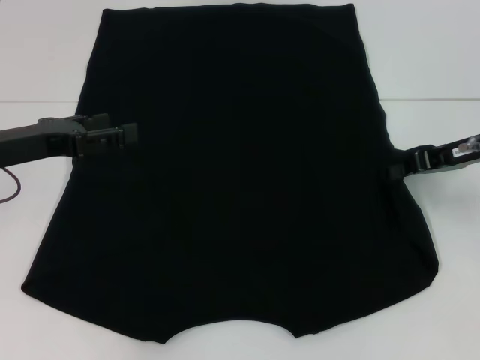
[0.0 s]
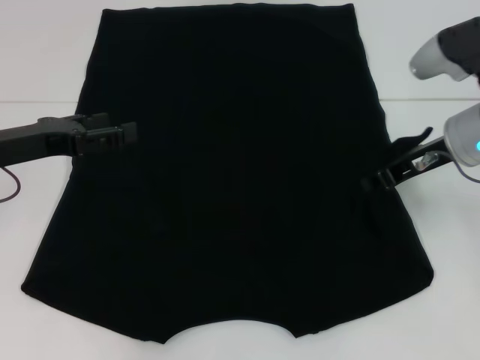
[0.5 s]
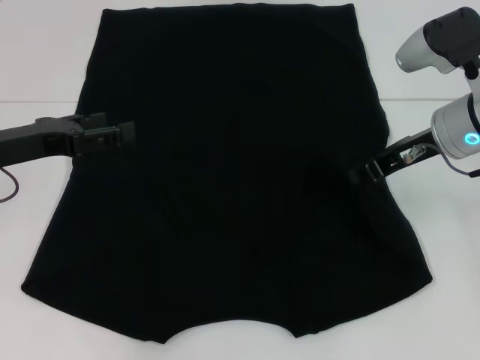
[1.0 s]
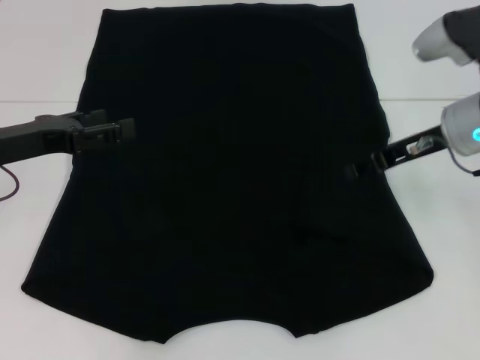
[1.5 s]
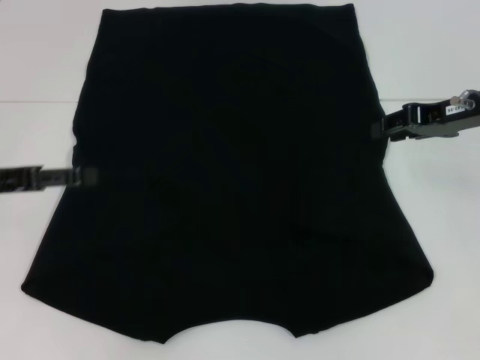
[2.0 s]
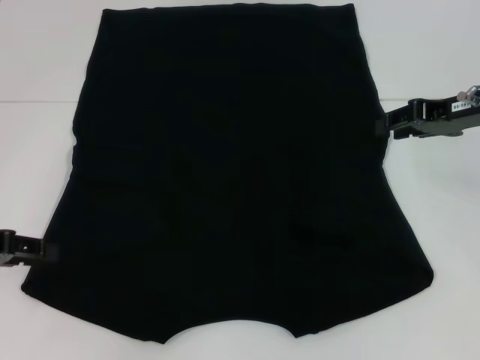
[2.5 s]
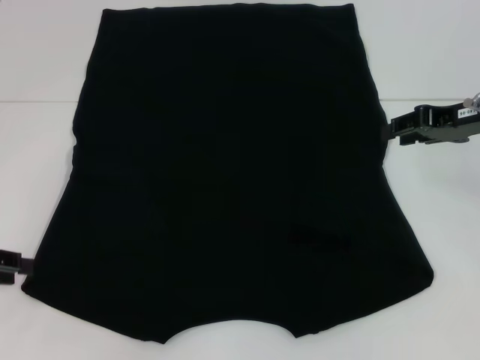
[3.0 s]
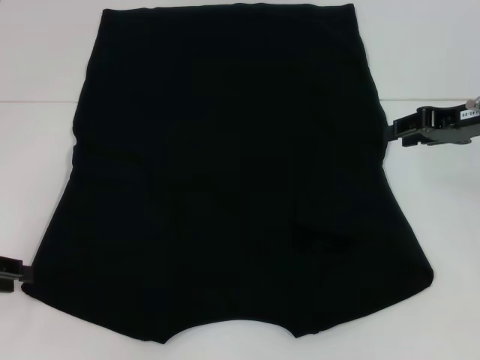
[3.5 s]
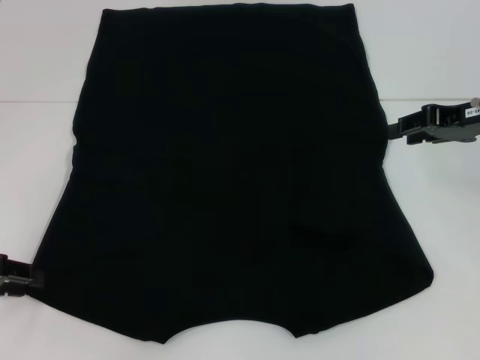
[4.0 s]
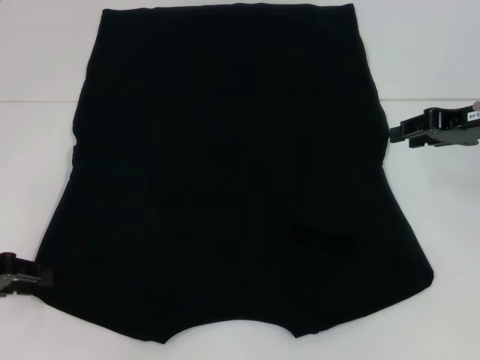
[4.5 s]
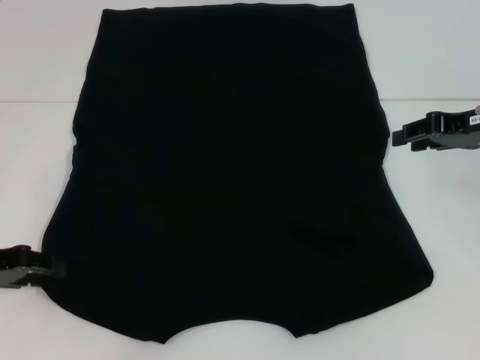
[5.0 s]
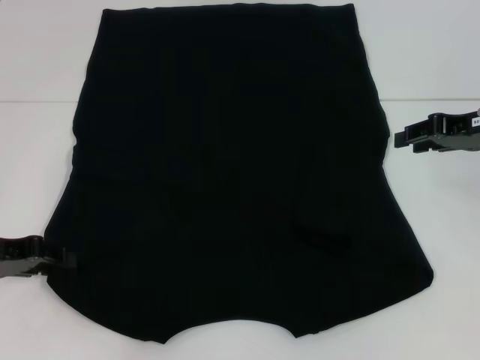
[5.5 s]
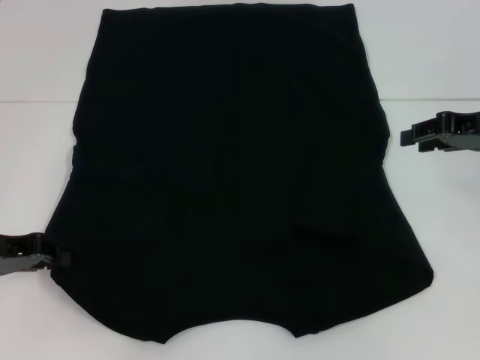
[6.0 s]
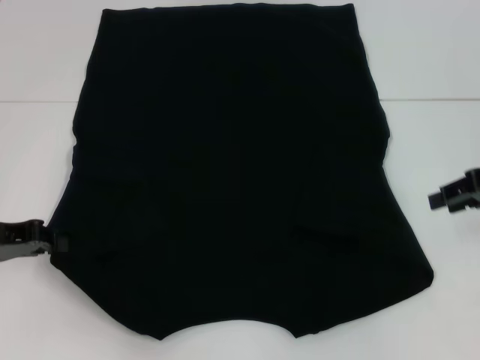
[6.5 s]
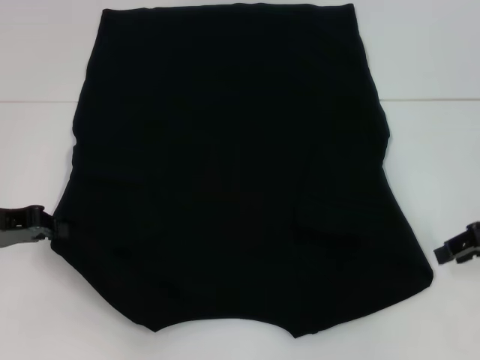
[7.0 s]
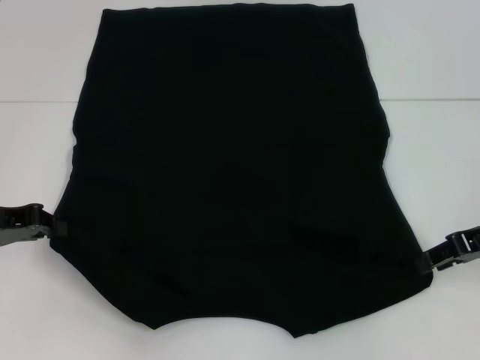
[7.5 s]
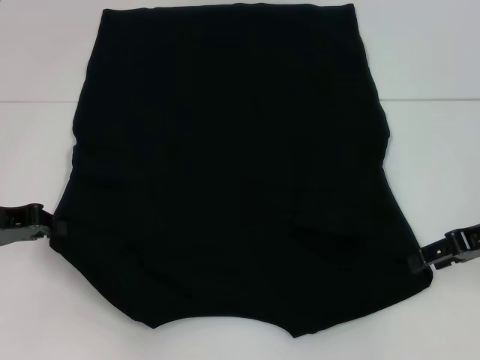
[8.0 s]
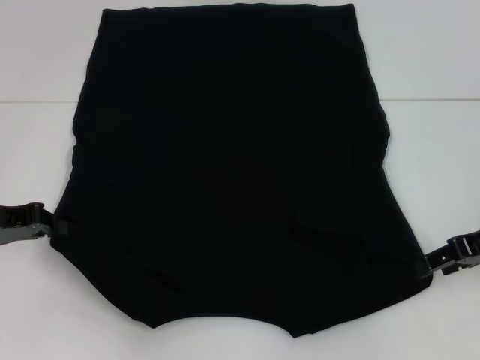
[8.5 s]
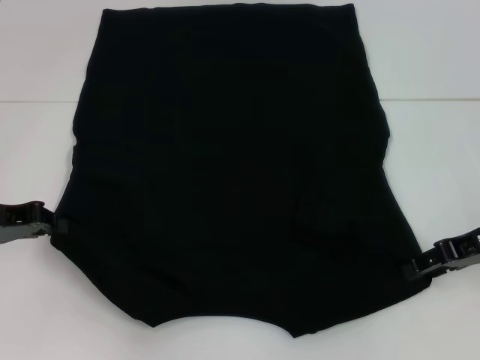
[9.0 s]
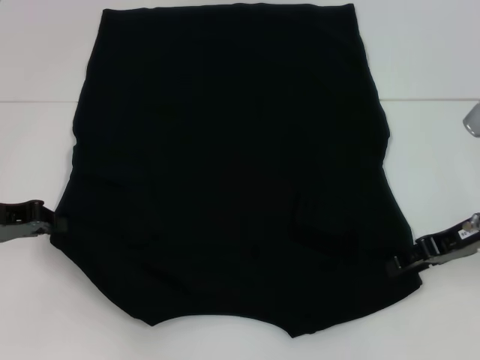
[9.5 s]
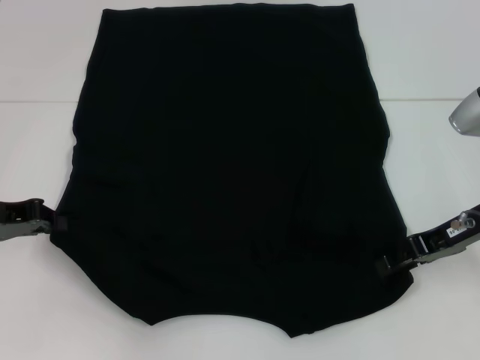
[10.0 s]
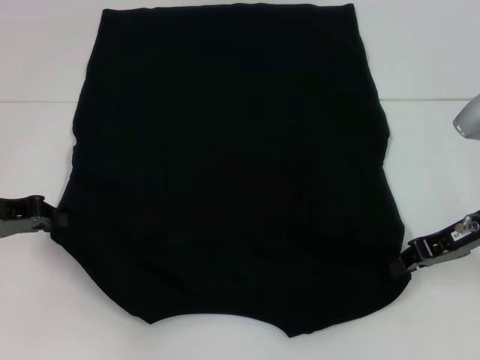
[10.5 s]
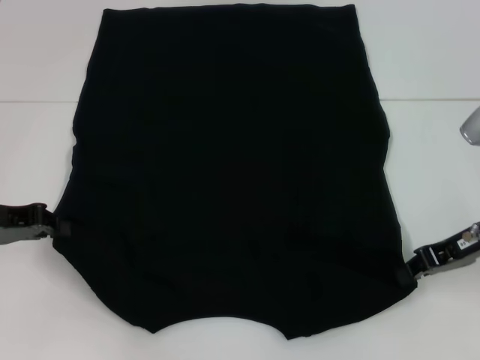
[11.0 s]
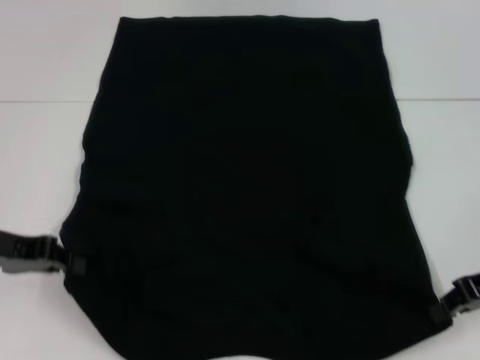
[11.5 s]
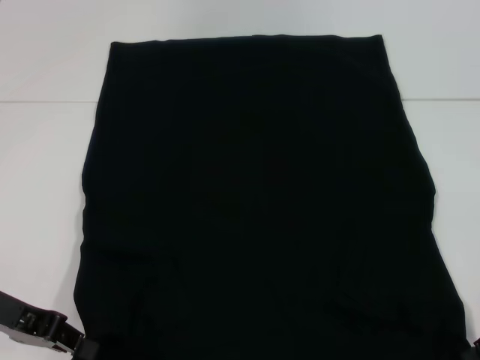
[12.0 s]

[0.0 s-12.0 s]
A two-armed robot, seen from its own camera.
Step, 1.5 to 6.5 s: Grab the bottom left corner with your left hand.
Step, 7.0 to 11.0 s: Grab the bottom right corner with your right hand.
0.0 to 2.0 s: The right gripper opens.
2.0 to 4.0 s: The left gripper moves some 5 cm.
4.0 to 6.0 s: The grippers stay close to where they were, moving slightly.
6.0 to 8.0 s: The left gripper closes; the right gripper heads backward, covering approximately 5 cm.
8.0 to 10.0 s: The grippers make only small movements.
10.0 to 12.0 s: The left gripper moves some 5 cm; the right gripper goes some 10 cm backward and to the right, and closes.

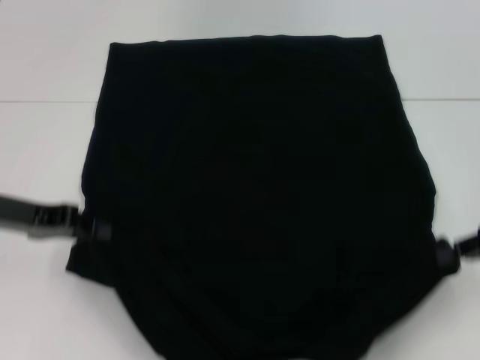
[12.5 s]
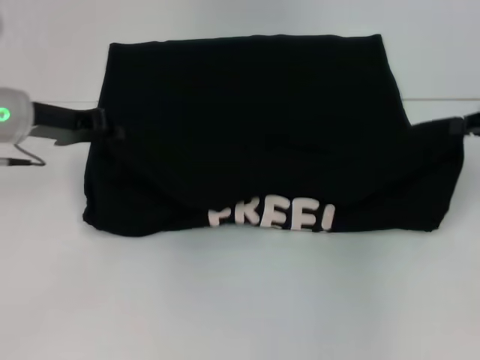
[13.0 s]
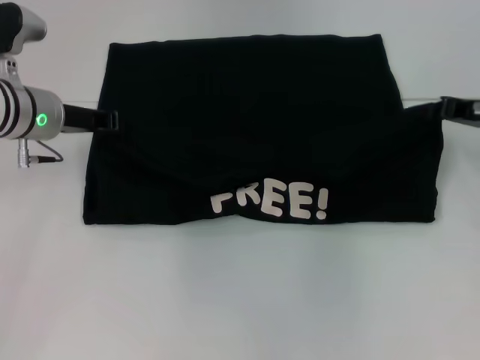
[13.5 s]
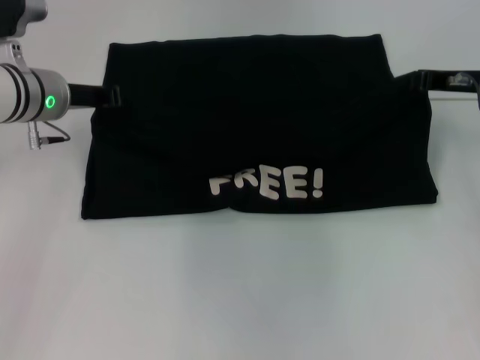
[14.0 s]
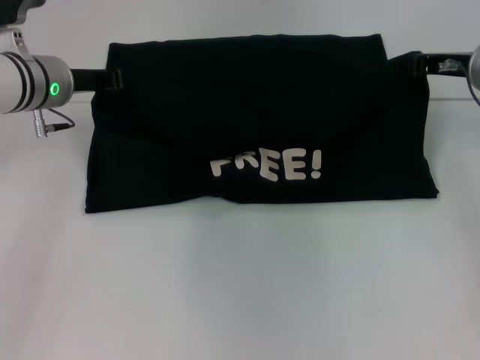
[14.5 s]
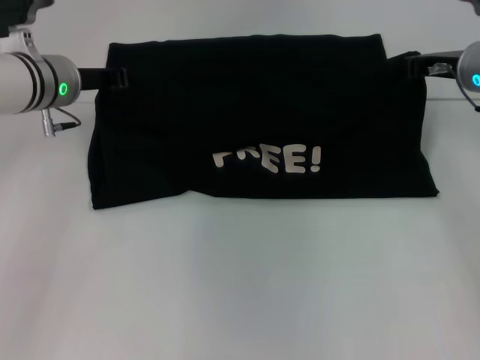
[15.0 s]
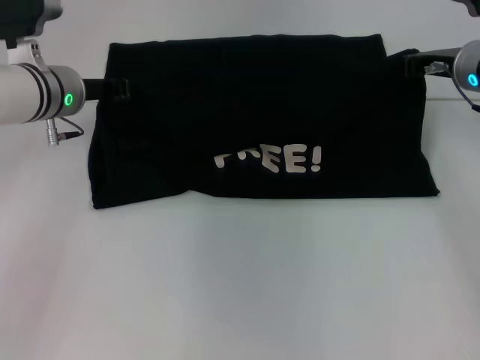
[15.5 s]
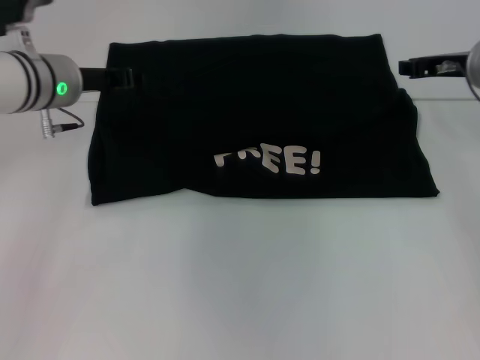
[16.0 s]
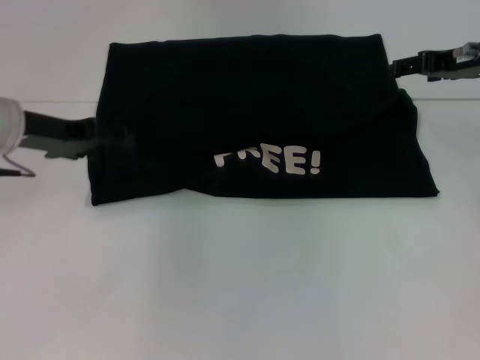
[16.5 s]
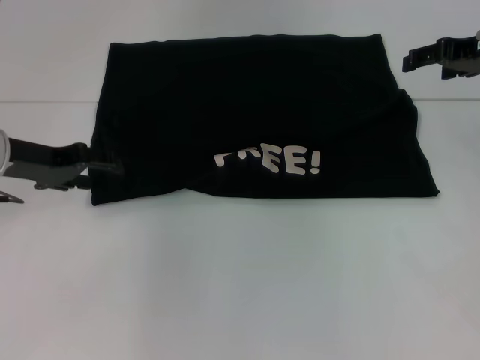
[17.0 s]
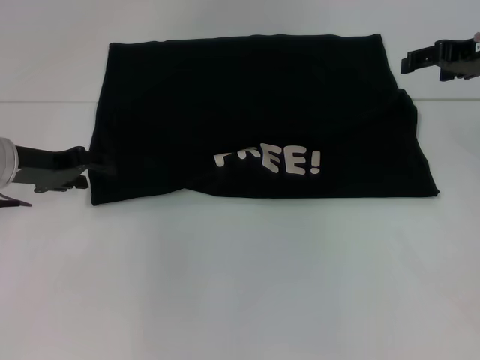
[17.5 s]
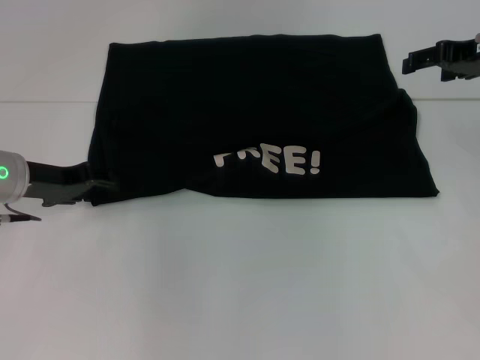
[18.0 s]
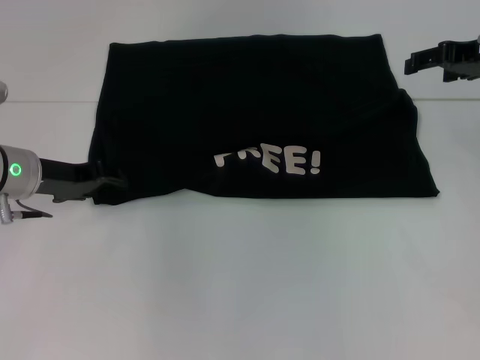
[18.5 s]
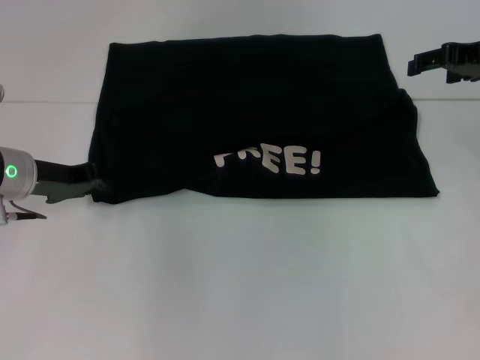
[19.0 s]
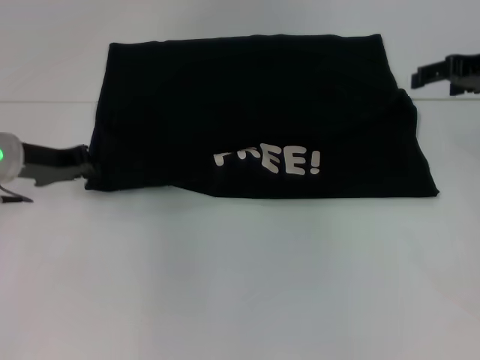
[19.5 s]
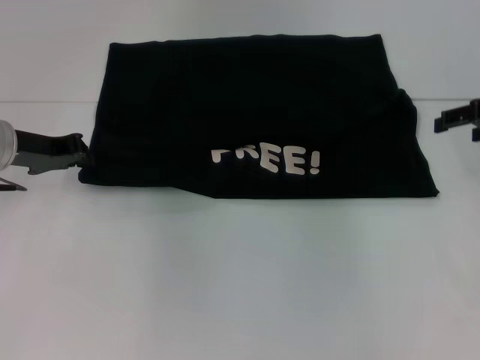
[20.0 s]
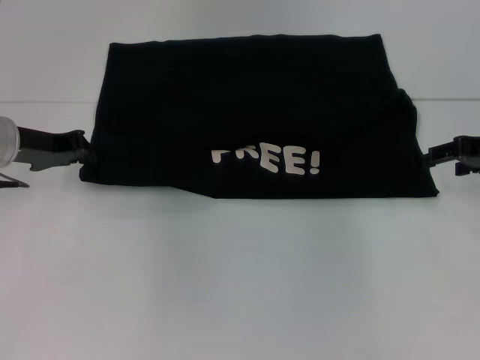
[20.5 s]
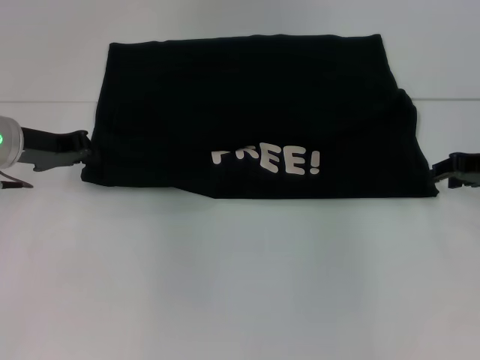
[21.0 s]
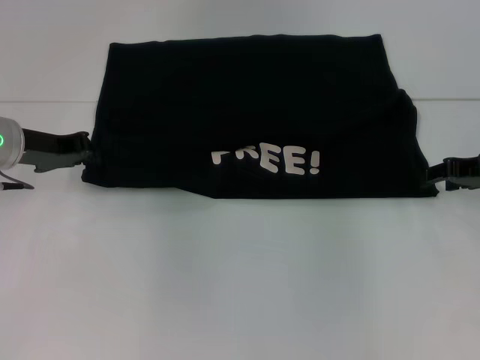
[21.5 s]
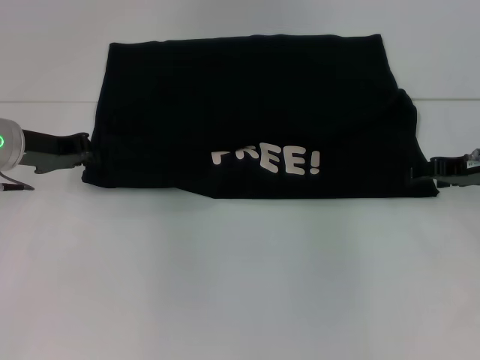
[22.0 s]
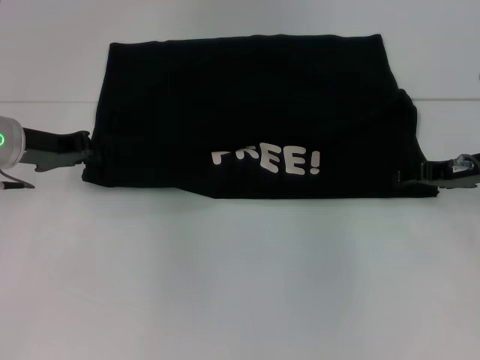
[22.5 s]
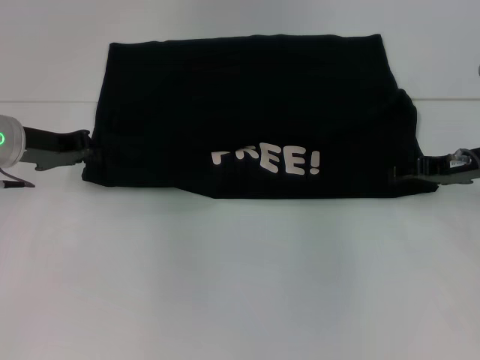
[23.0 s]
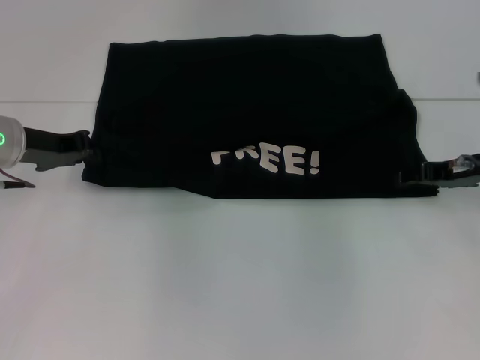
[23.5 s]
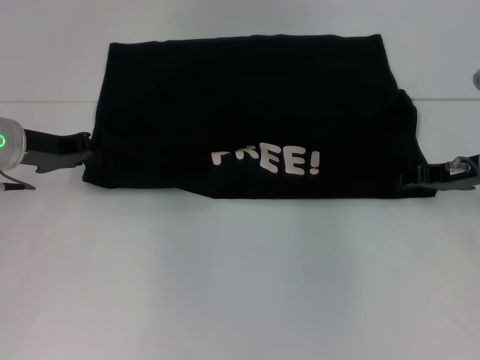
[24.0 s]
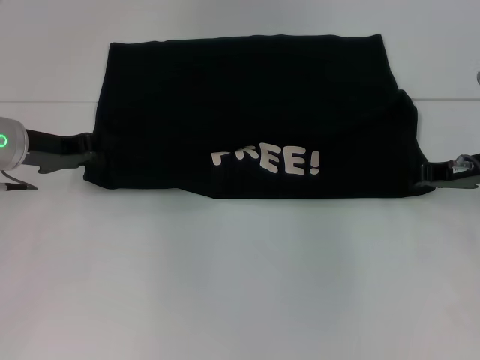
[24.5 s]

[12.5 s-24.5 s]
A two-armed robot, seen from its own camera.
Step, 12.5 to 16.0 s: Fold the clothes with your left hand.
Step, 12.5 to 16.0 s: Fold the clothes with your right hand.
12.5 to 14.5 s: The left gripper is displaced forward and to the right by some 15 cm; the right gripper heads forward and to the left, covering roughly 15 cm.
14.5 to 16.5 s: The right gripper opens. Meanwhile the left gripper goes approximately 5 cm backward, and opens.
16.5 to 18.5 s: The left gripper heads downward, covering about 5 cm.
18.5 to 20.5 s: The right gripper is displaced downward by roughly 5 cm, while the left gripper closes.
20.5 to 22.5 s: The right gripper changes place by approximately 5 cm.

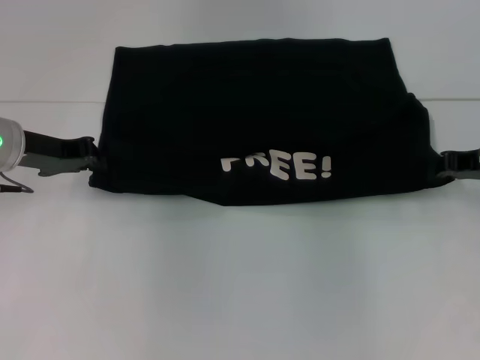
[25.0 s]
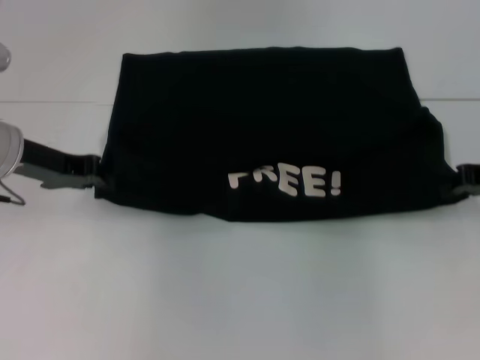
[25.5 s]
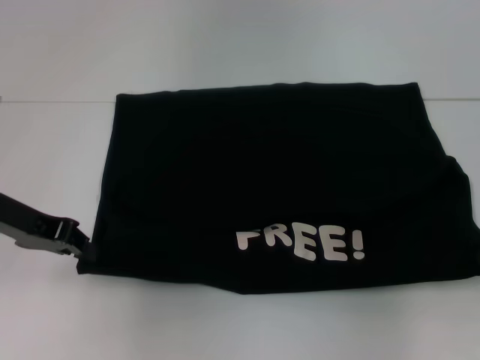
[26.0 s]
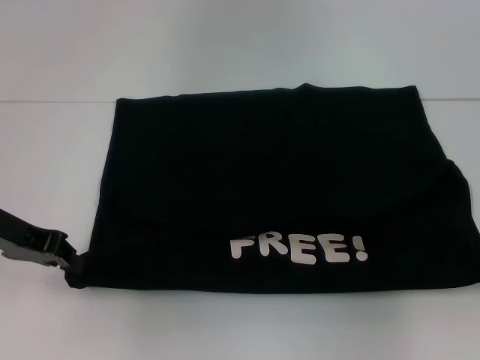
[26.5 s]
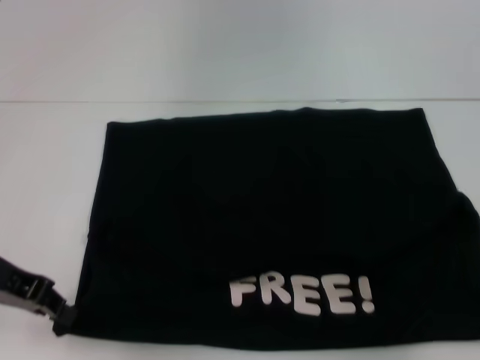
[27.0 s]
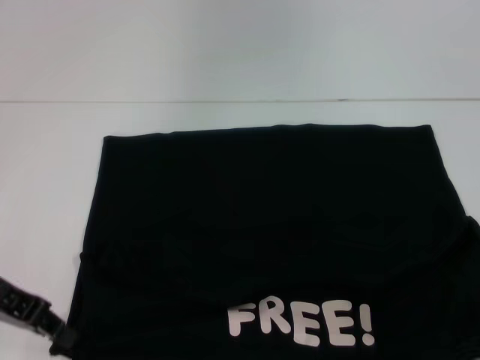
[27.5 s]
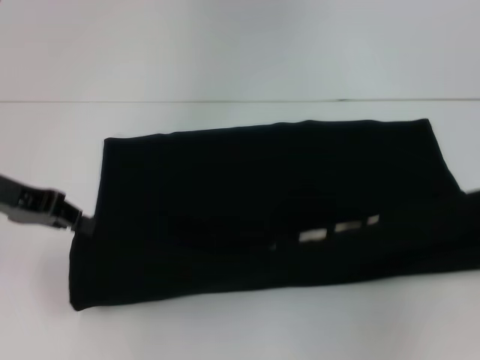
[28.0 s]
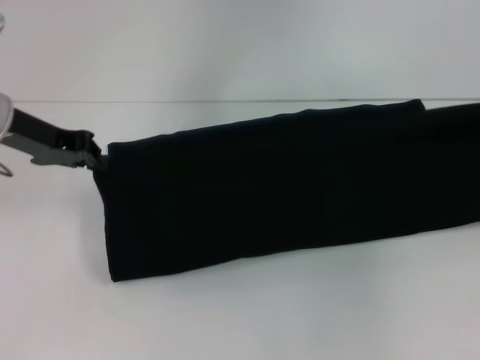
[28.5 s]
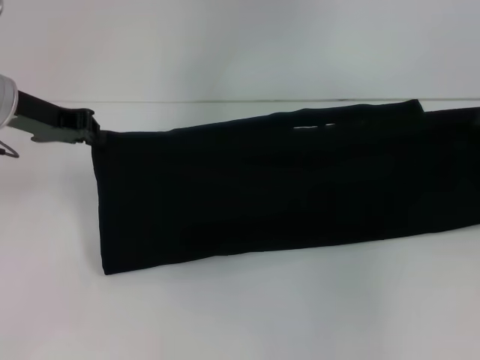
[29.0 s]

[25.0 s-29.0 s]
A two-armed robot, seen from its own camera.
Step, 25.0 to 27.0 s: Pull the clothes with your left hand.
Step, 25.0 to 27.0 s: Pull the clothes with your right hand.
25.0 to 27.0 s: Both grippers travel together backward, some 10 cm.
27.0 to 29.0 s: The right gripper is displaced forward and upward by about 10 cm. Meanwhile the left gripper moves forward, about 10 cm.
